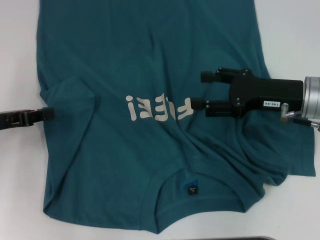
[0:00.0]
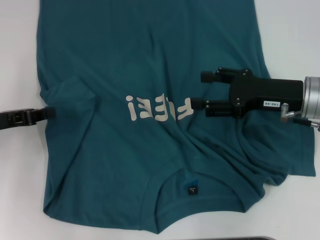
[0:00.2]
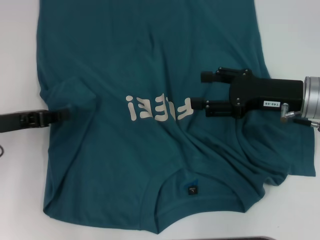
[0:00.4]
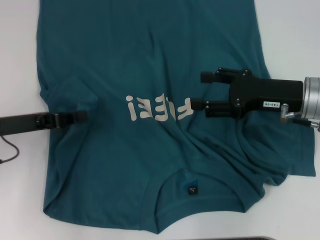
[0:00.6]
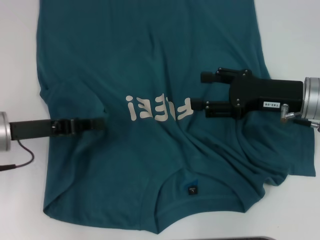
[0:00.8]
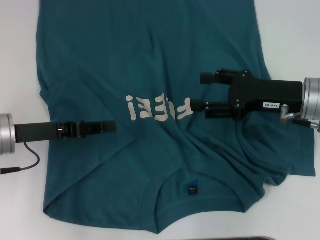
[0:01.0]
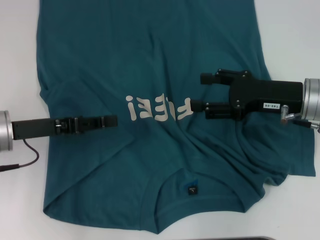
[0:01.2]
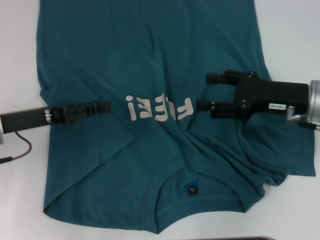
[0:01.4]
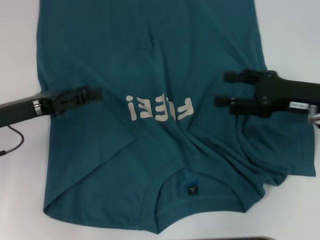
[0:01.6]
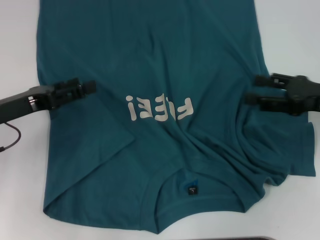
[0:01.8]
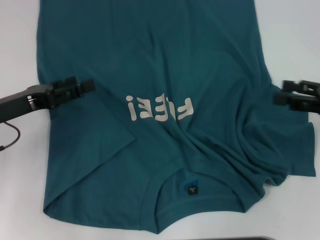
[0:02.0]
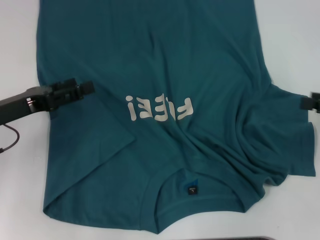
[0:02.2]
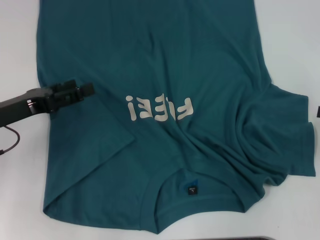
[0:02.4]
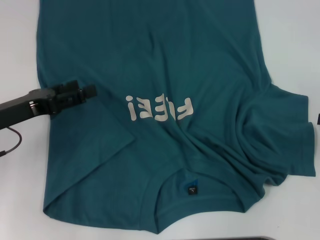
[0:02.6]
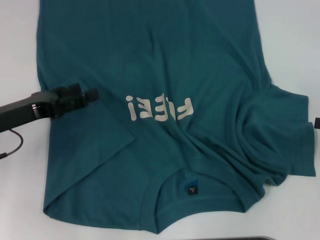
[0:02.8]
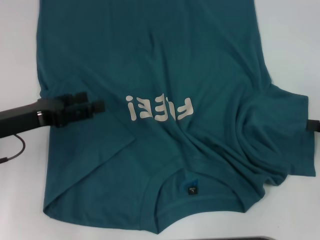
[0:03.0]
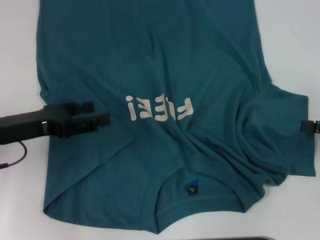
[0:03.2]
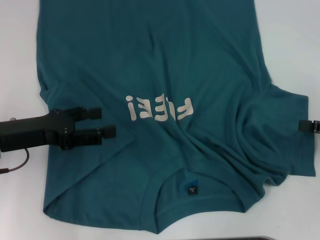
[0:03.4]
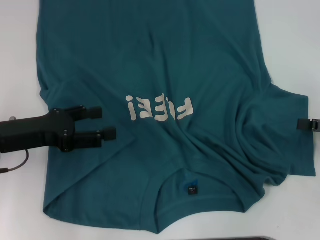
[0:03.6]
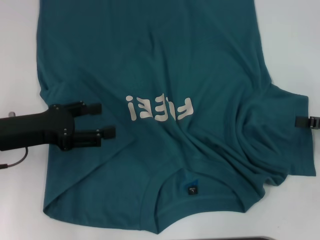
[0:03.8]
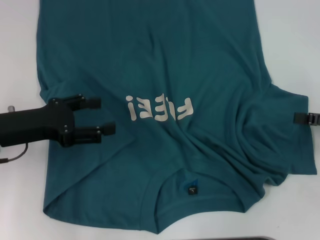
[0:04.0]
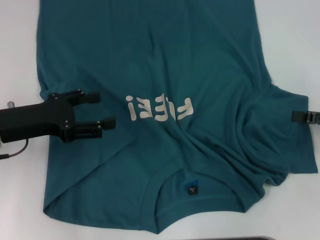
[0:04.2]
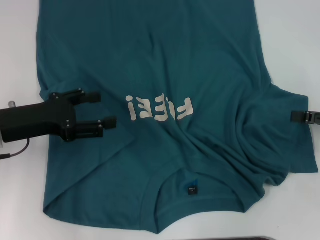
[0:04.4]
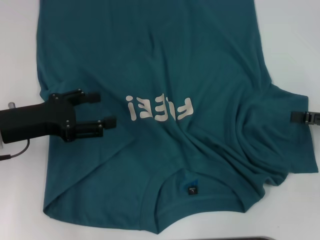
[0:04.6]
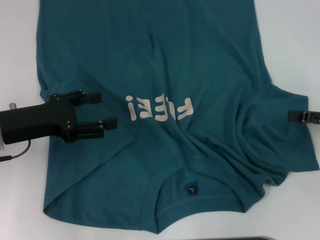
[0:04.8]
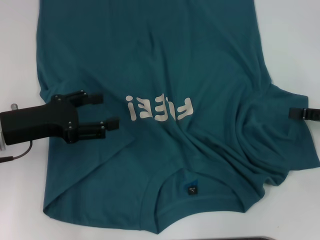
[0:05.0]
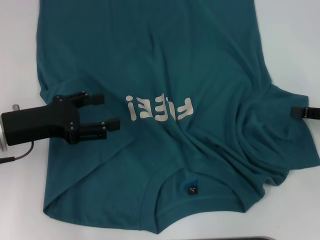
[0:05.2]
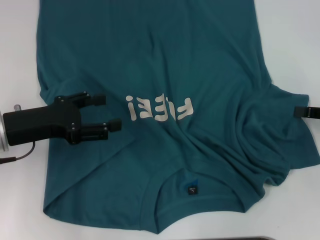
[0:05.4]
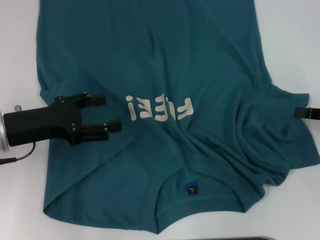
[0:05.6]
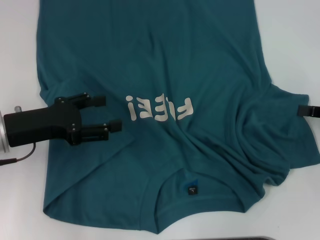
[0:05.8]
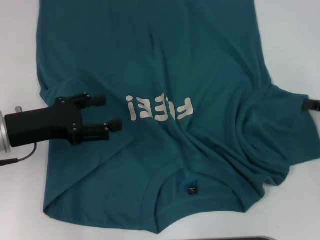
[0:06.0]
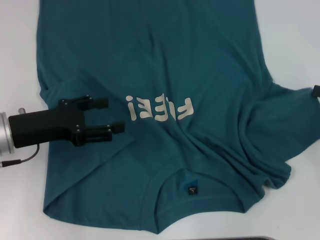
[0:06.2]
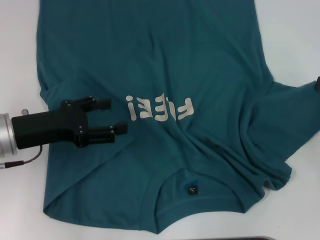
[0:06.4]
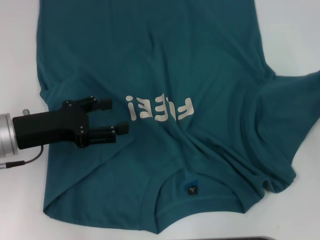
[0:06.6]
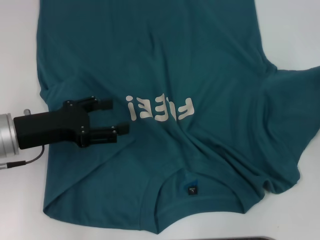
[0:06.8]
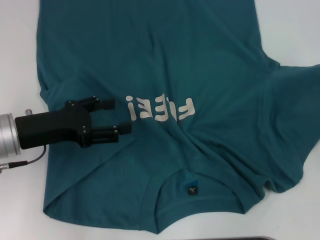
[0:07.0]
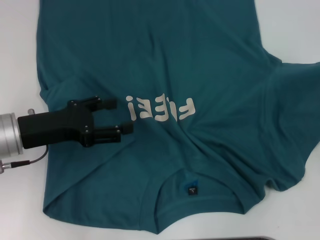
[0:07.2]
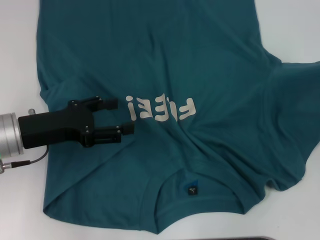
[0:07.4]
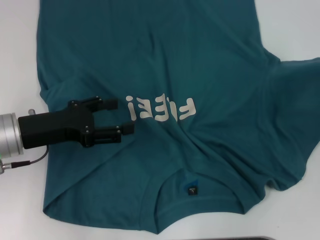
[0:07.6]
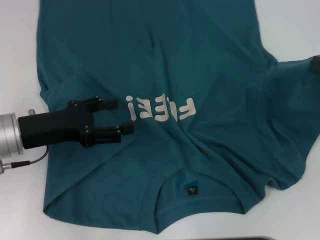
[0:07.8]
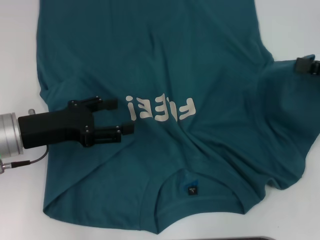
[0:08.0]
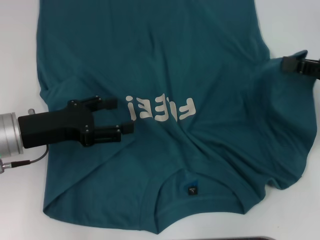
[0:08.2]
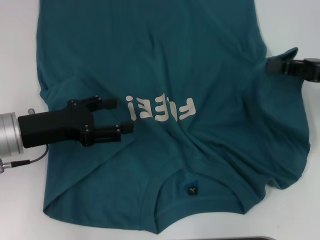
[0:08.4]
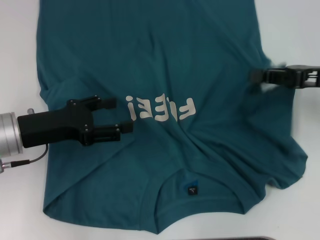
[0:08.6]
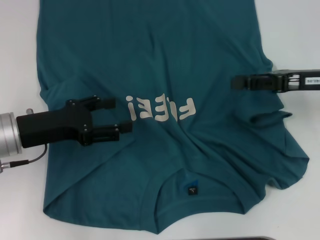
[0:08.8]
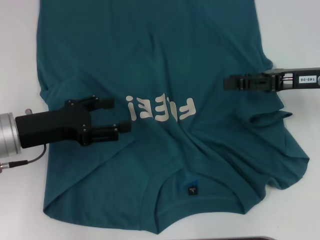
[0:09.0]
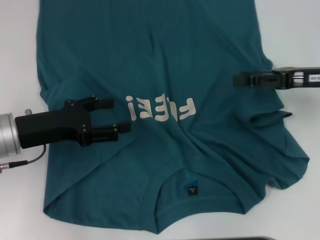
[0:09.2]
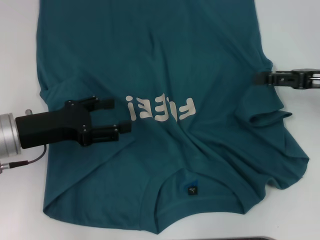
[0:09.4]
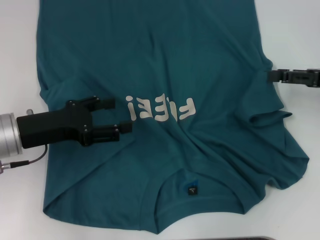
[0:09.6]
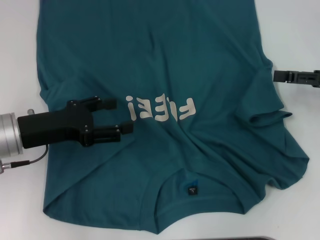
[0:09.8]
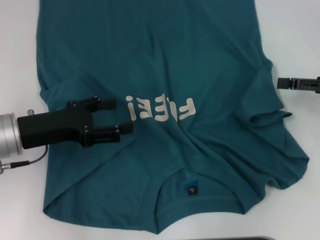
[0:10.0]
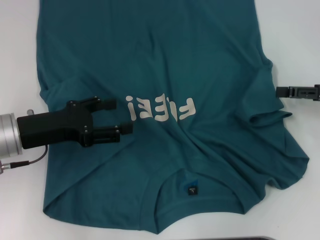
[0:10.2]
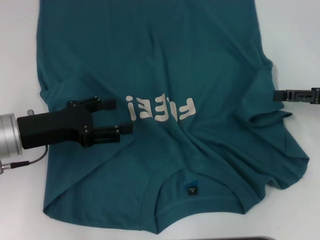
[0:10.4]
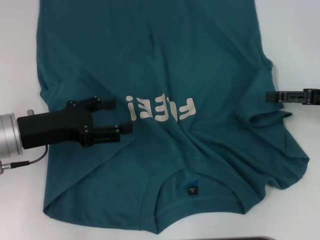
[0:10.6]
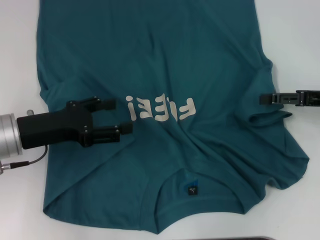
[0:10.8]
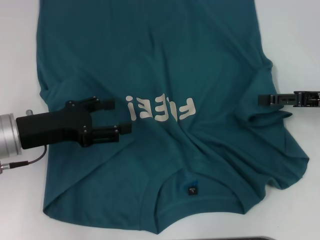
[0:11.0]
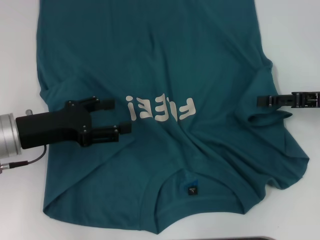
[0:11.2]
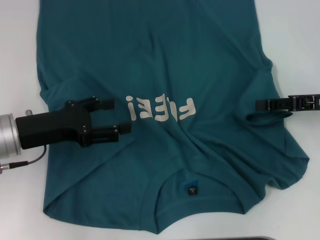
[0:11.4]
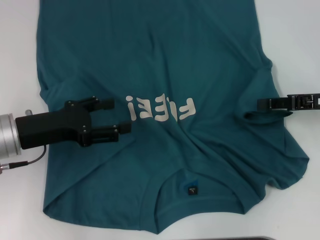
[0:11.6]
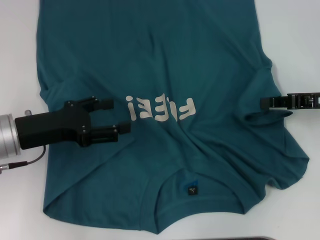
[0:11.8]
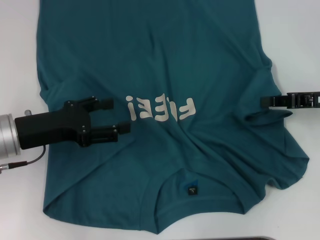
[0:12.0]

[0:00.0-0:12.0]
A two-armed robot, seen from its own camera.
0:00.0 to 0:01.6: The left gripper opens.
0:01.6 to 0:03.0: The right gripper is displaced to the right and backward by about 15 cm.
0:04.4 to 0:06.0: The right gripper closes its fingers.
0:06.0 to 0:07.6: The right gripper moves some 5 cm.
0:07.6 to 0:09.0: The right gripper shifts roughly 15 cm to the left and forward.
0:09.0 to 0:10.4: The right gripper is displaced to the right by about 5 cm, and opens.
0:10.4 to 0:12.0: The right gripper closes its fingers.

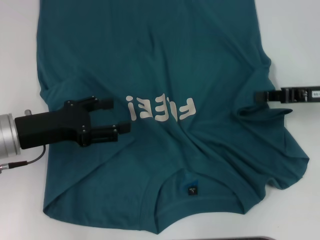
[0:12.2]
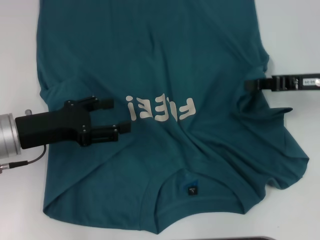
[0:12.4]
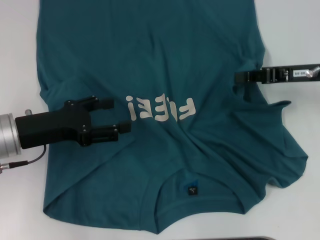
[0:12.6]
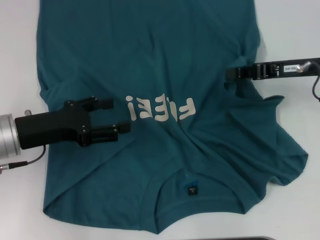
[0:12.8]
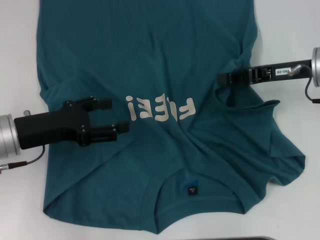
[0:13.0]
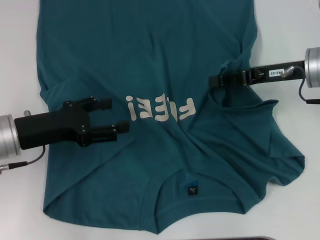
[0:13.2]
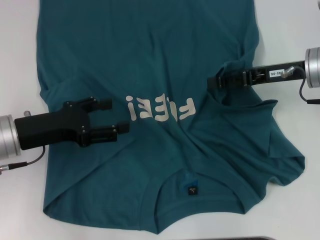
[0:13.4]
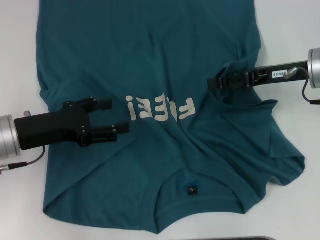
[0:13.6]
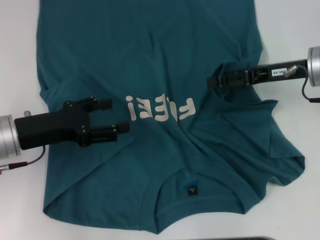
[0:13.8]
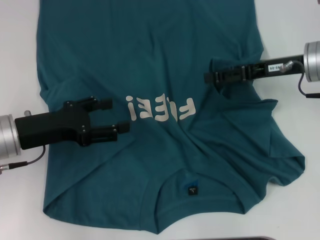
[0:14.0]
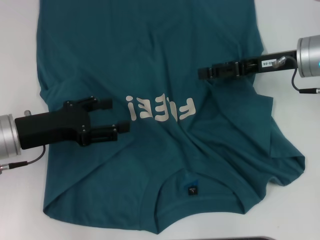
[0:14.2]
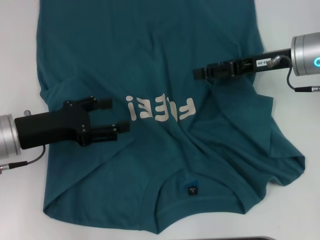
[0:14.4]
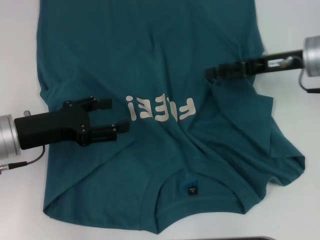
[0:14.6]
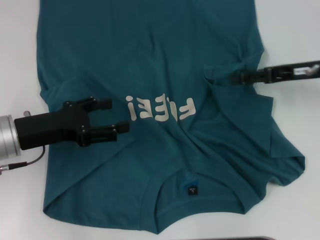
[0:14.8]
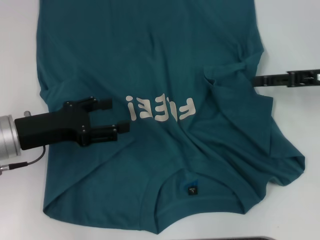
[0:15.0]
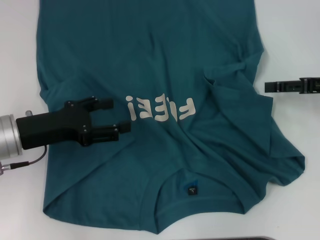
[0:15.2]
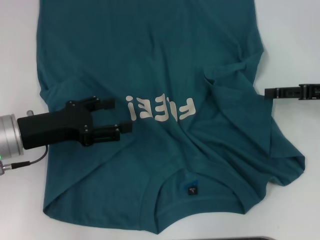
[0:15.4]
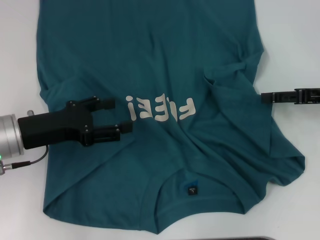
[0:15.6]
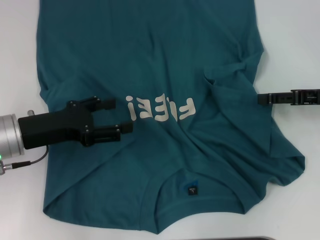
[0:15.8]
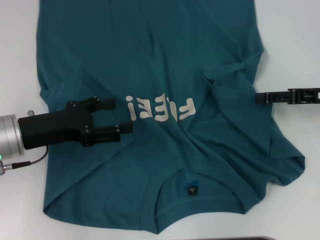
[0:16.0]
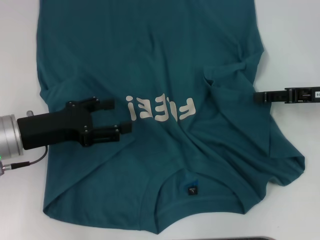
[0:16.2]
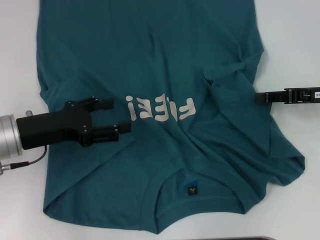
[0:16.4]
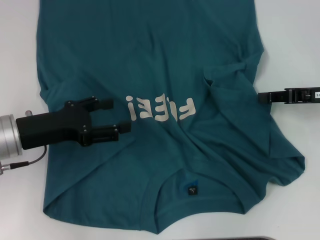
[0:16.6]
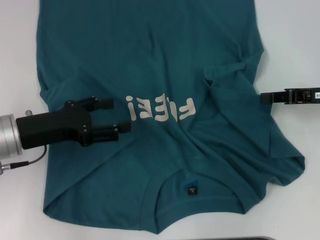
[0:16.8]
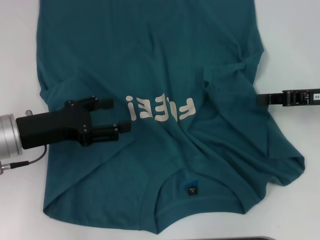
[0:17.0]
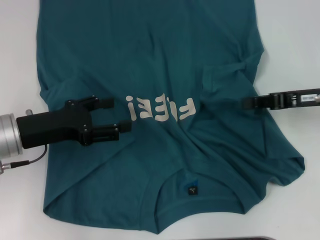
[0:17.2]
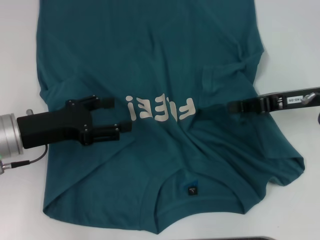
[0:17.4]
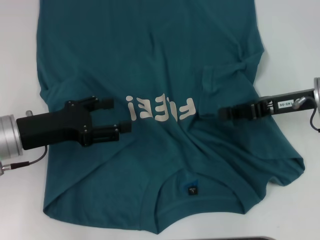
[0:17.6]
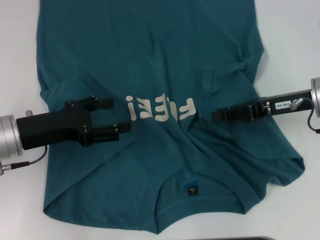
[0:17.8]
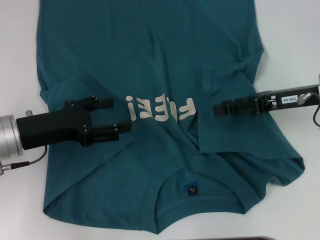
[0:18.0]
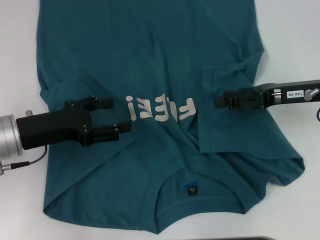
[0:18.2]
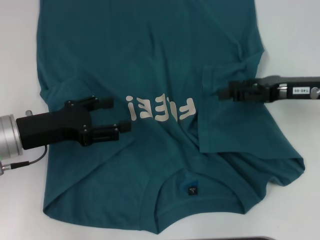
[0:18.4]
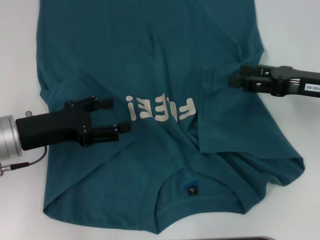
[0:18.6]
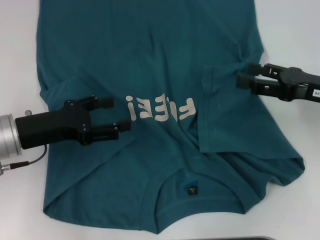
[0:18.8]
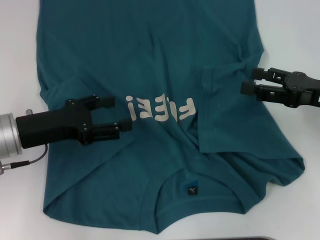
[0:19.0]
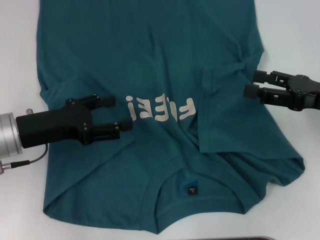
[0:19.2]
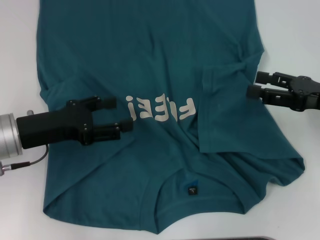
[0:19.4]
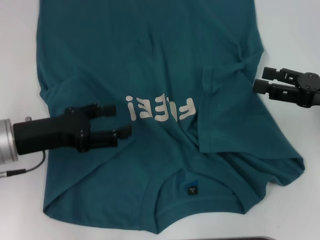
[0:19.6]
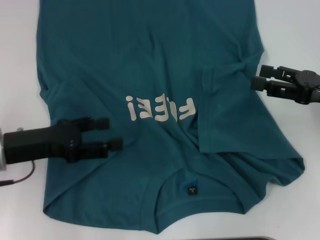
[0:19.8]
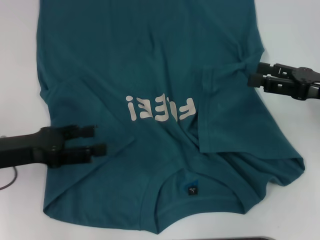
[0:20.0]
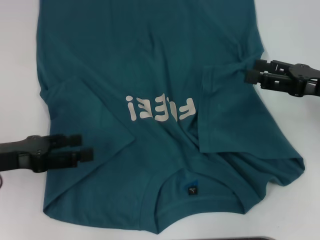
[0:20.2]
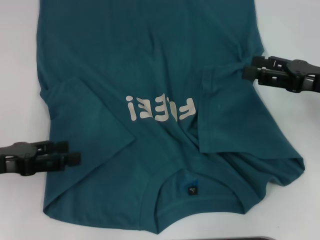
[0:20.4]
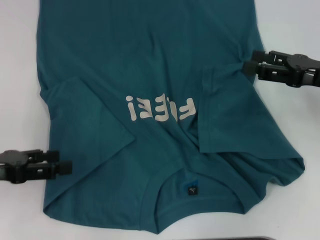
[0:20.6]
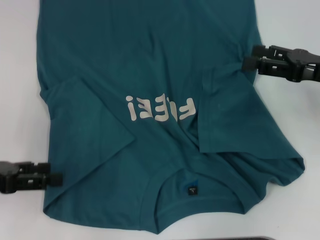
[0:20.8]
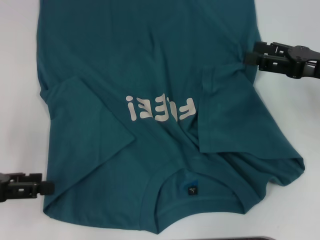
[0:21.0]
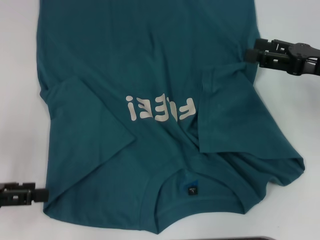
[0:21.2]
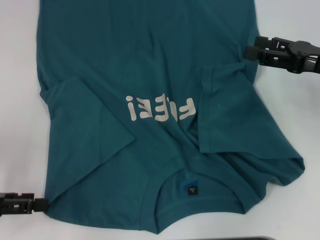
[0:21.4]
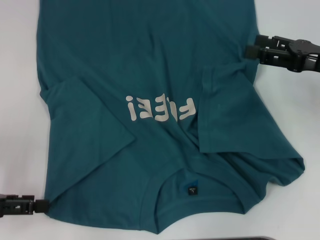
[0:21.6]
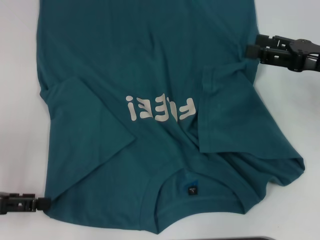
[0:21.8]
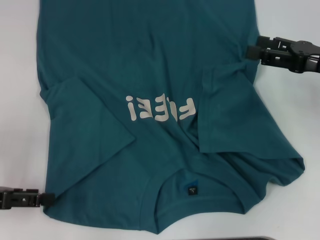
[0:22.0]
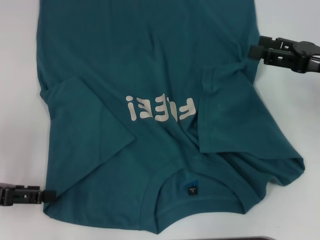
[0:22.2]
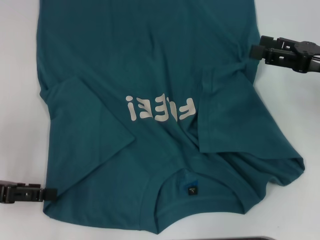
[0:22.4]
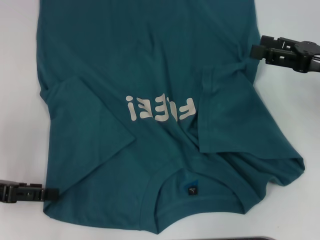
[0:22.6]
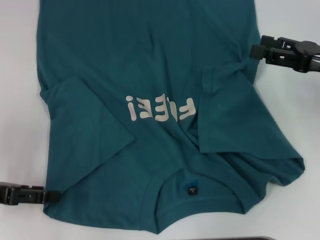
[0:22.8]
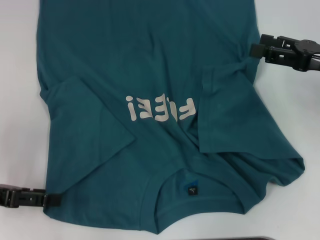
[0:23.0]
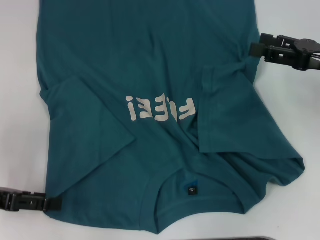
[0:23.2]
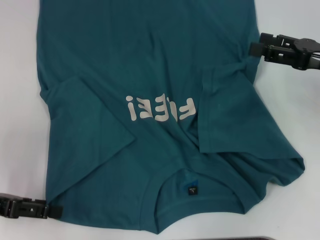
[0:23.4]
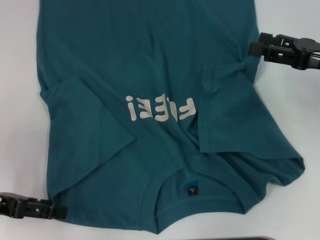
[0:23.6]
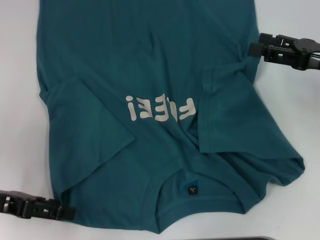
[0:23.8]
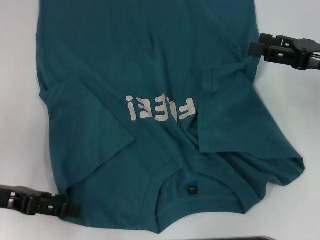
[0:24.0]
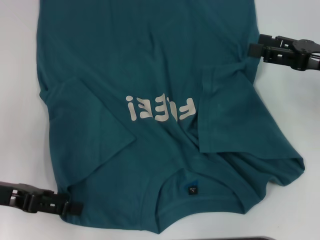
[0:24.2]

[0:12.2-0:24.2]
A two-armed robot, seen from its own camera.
Step, 0:12.2 to 0:18.8: Fold the bottom right sleeve to the right.
0:12.2 to 0:13.8: The right gripper moves to the left, some 5 cm, and opens its fingers.
0:13.8 to 0:15.2: The right gripper goes some 10 cm to the right.
0:15.2 to 0:16.6: The grippers make only small movements.
0:16.6 to 0:18.2: The right gripper heads to the left, covering some 5 cm, and closes, then reopens.
0:18.2 to 0:19.8: The right gripper changes place by about 5 cm, and opens its fingers.
0:19.8 to 0:21.2: The left gripper goes some 10 cm to the left and backward.
0:21.2 to 0:24.2: The grippers make only small movements.
